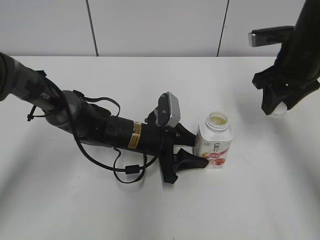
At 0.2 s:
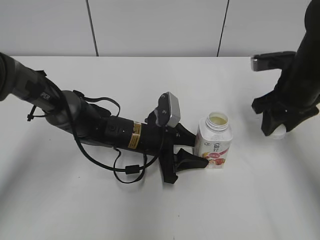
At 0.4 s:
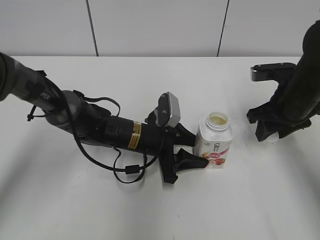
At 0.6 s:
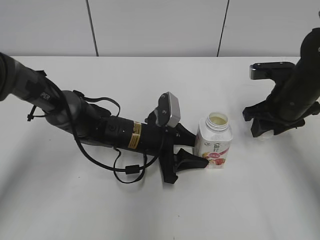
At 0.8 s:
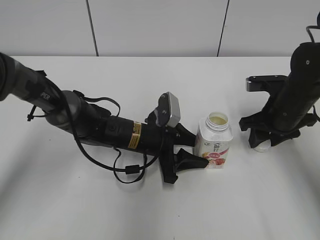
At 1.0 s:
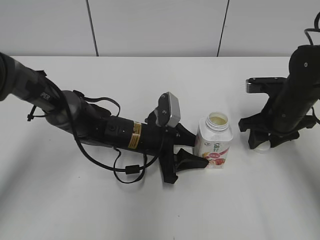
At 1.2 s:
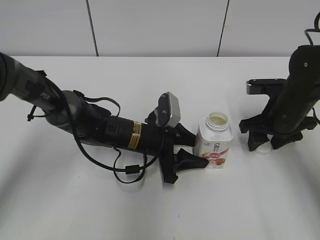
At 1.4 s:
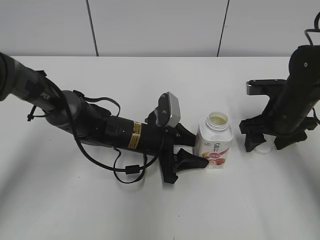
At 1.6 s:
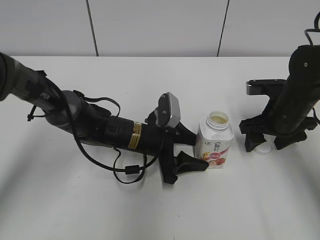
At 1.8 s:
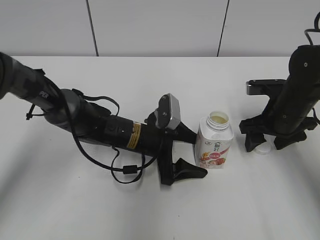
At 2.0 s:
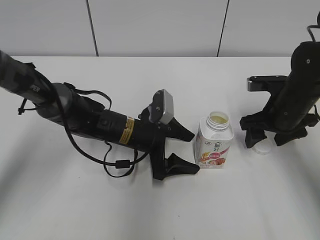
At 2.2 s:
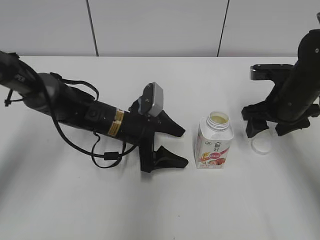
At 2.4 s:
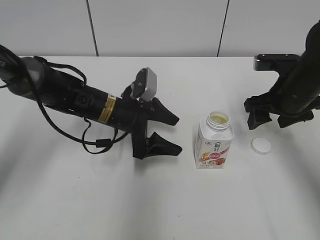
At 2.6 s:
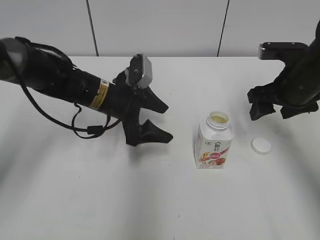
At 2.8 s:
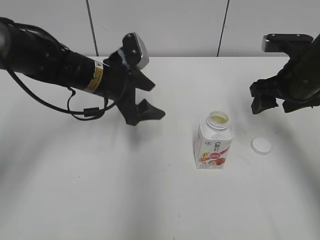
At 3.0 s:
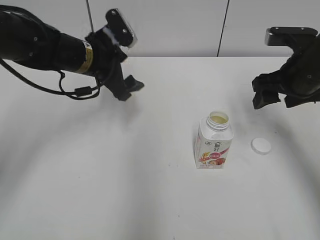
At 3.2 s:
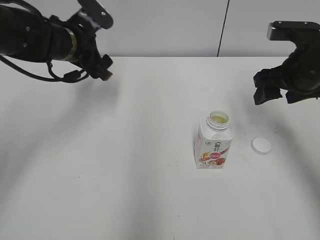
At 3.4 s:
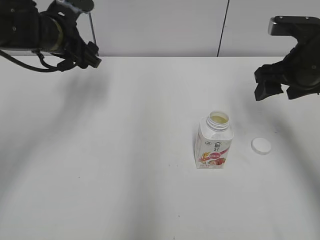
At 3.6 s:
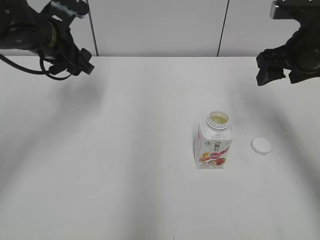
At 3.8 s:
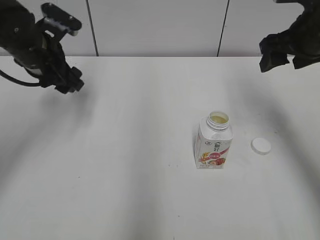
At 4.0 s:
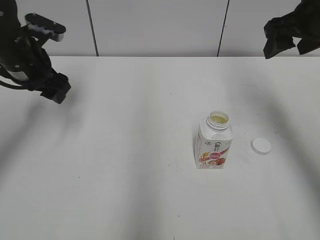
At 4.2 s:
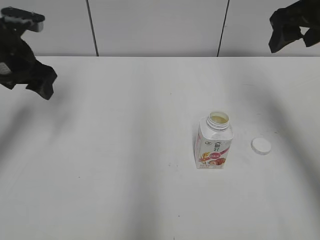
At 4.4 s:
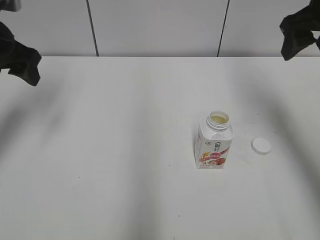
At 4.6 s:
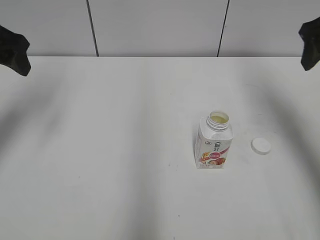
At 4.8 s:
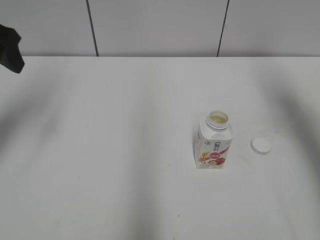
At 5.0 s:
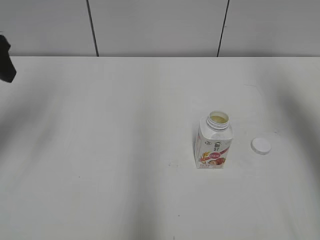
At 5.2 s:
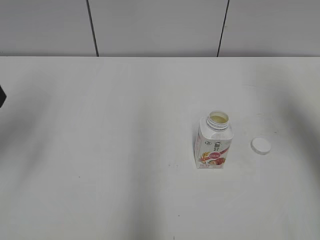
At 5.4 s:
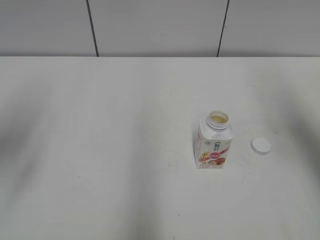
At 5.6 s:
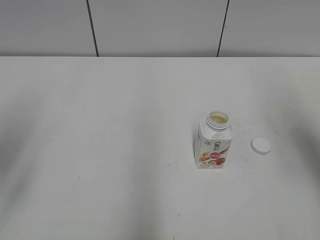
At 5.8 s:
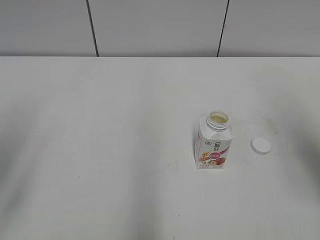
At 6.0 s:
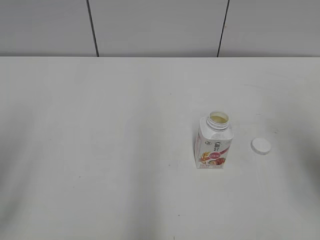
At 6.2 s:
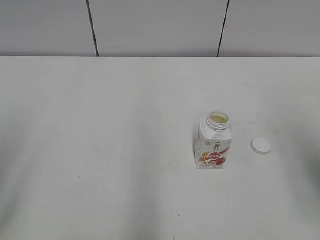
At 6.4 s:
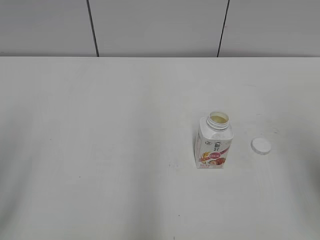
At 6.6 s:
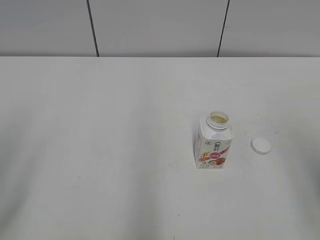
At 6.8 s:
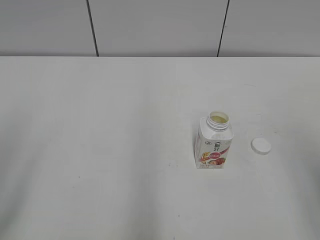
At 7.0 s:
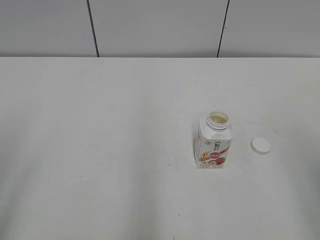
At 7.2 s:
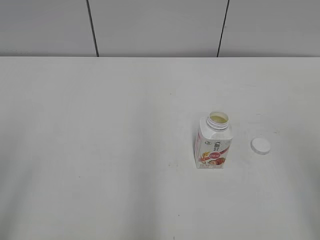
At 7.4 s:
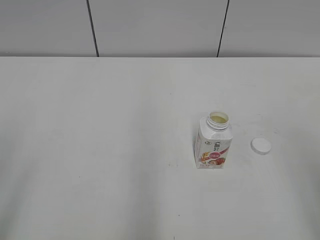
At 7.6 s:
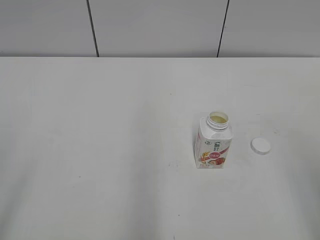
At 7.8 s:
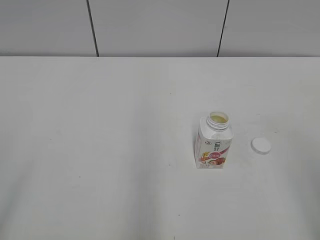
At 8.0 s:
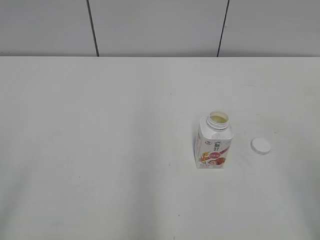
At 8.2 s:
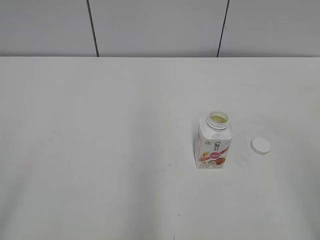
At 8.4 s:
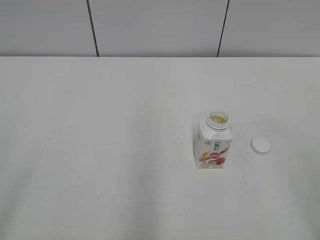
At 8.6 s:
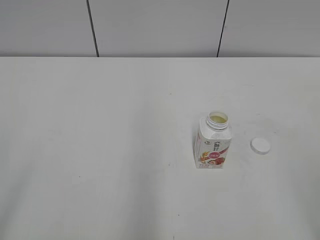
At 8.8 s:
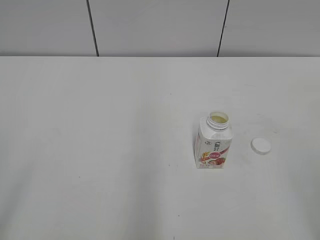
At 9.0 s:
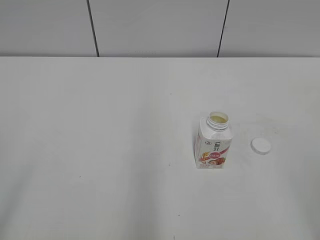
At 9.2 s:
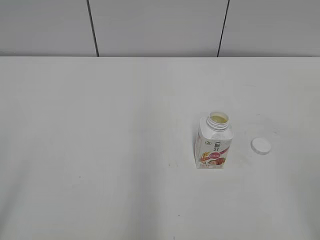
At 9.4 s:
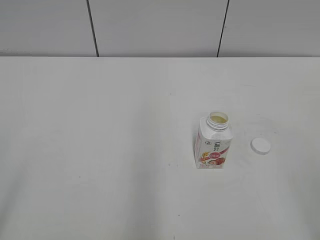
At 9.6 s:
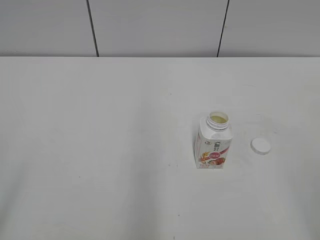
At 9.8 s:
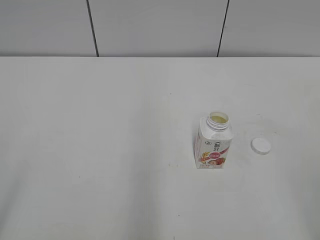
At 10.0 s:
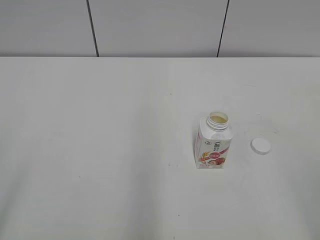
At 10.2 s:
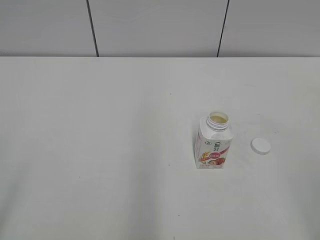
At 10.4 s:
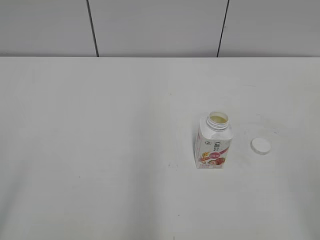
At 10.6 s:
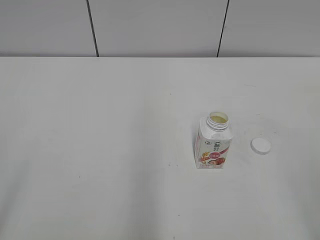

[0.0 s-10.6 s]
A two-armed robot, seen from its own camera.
0.0 to 1.6 s: The right gripper shifts some 10 cm downward, and opens.
1.6 to 3.0 s: The left gripper heads upward, to the left and forward, covering roughly 20 cm, and opens up. The right gripper travels upward by approximately 10 cm.
3.0 to 4.6 s: The right gripper goes approximately 10 cm upward, while the left gripper moves to the left, upward and backward, approximately 20 cm.
4.6 to 6.0 s: Both grippers move backward, roughly 20 cm.
6.0 to 7.6 s: The right gripper travels backward by some 10 cm.

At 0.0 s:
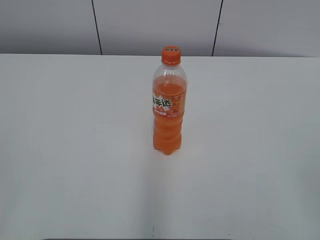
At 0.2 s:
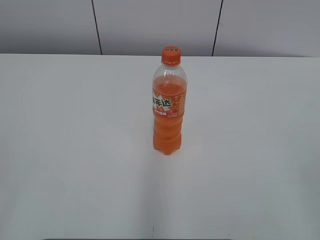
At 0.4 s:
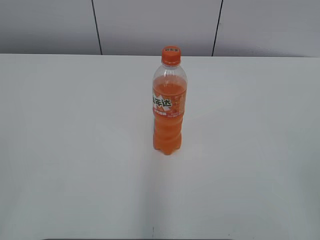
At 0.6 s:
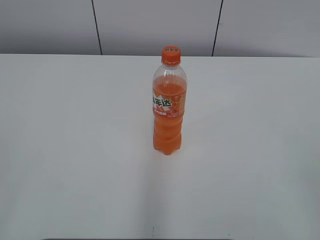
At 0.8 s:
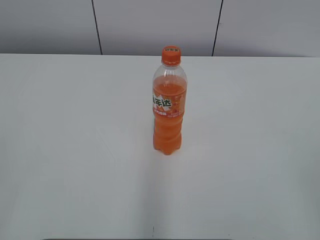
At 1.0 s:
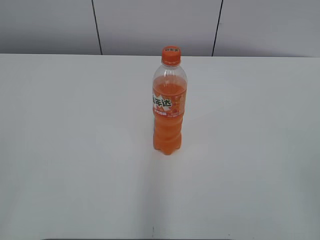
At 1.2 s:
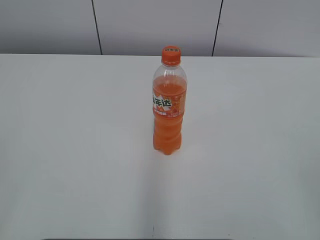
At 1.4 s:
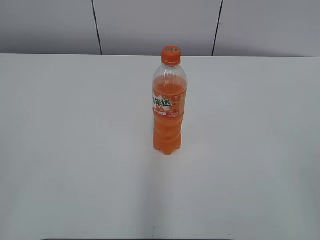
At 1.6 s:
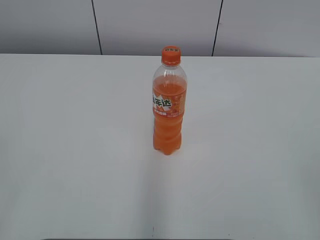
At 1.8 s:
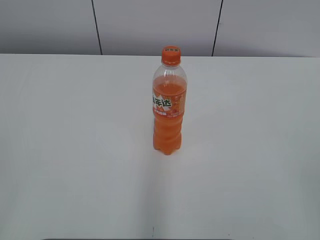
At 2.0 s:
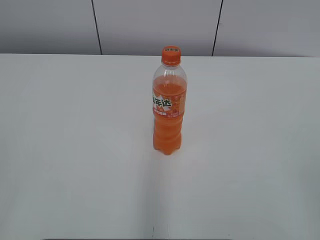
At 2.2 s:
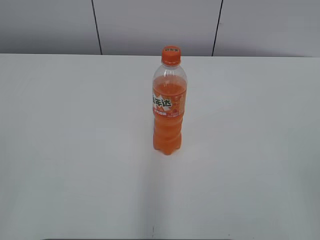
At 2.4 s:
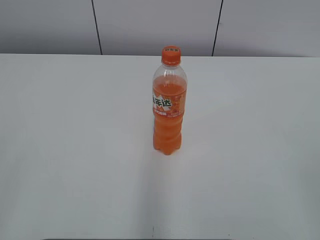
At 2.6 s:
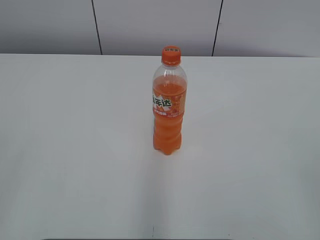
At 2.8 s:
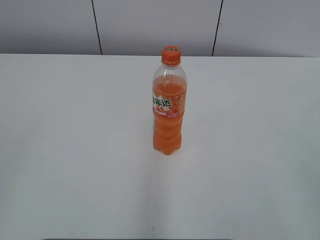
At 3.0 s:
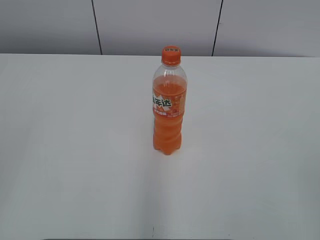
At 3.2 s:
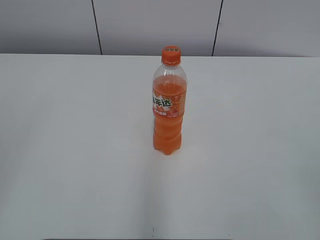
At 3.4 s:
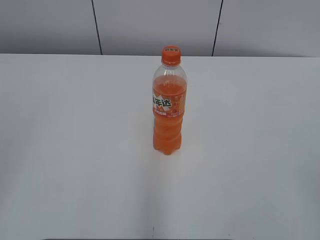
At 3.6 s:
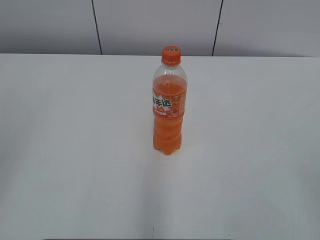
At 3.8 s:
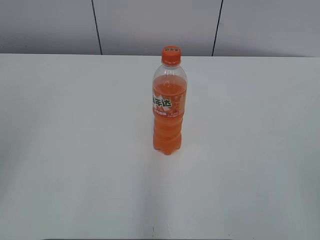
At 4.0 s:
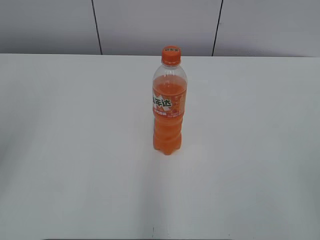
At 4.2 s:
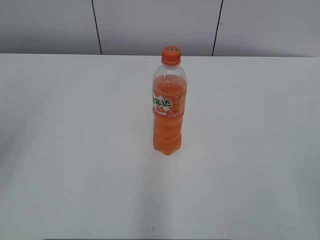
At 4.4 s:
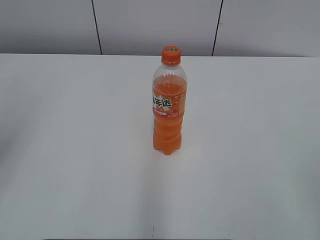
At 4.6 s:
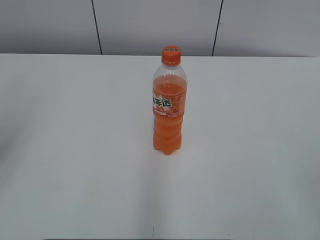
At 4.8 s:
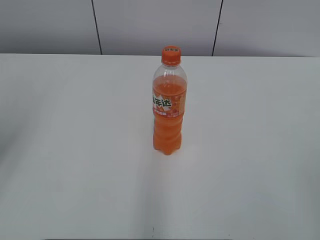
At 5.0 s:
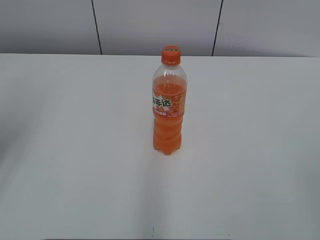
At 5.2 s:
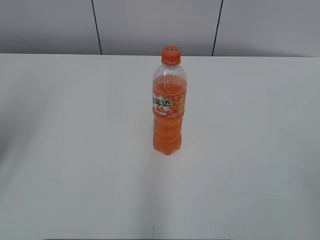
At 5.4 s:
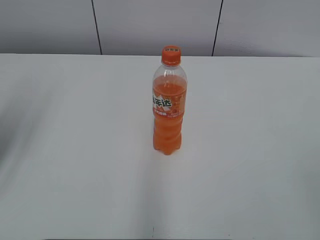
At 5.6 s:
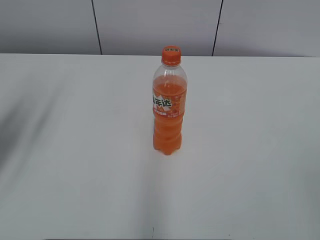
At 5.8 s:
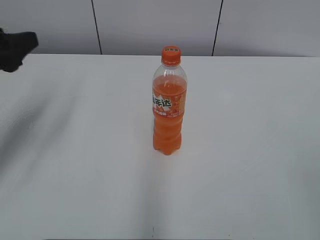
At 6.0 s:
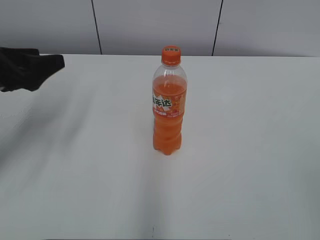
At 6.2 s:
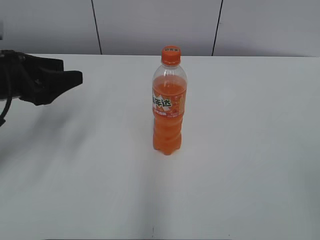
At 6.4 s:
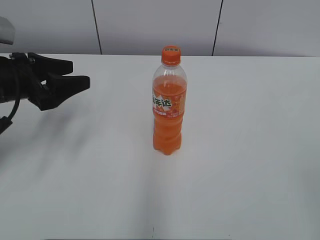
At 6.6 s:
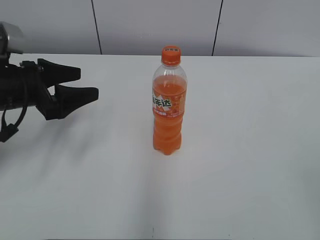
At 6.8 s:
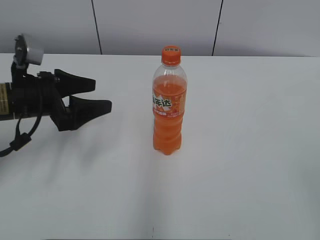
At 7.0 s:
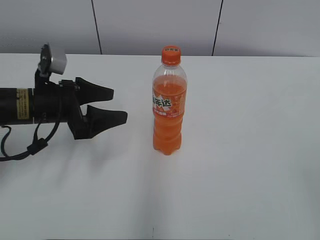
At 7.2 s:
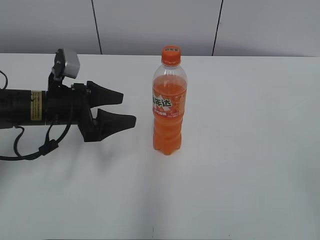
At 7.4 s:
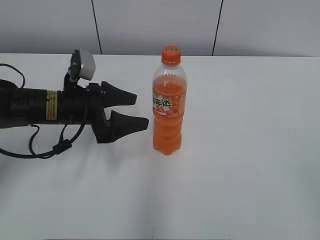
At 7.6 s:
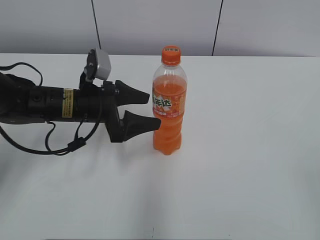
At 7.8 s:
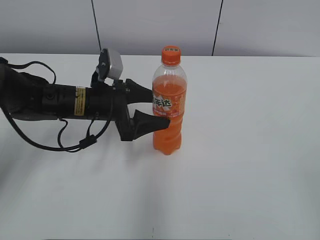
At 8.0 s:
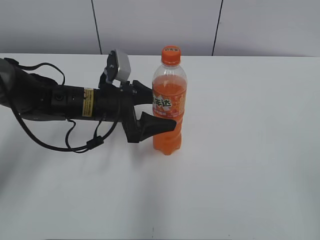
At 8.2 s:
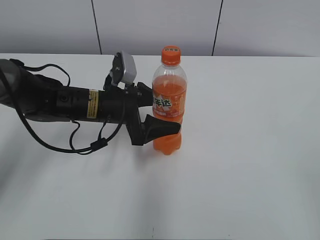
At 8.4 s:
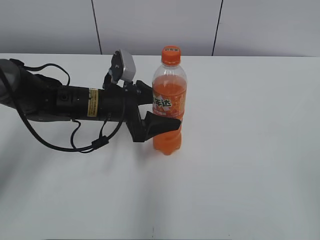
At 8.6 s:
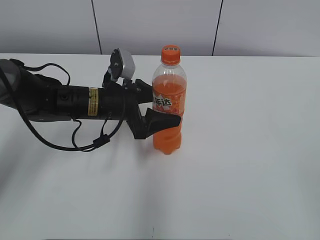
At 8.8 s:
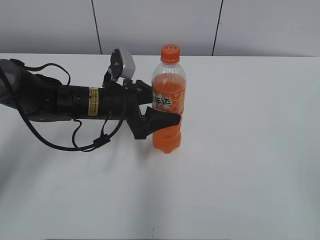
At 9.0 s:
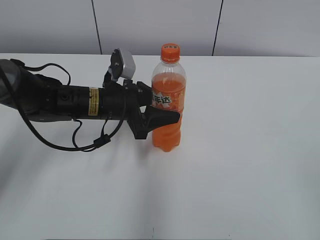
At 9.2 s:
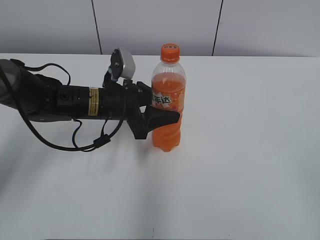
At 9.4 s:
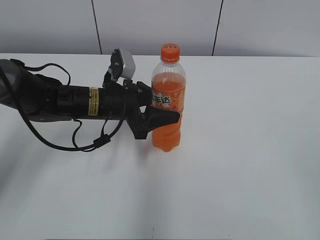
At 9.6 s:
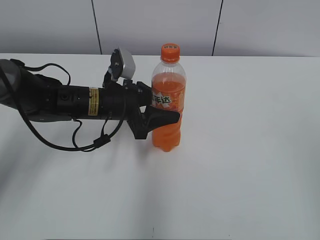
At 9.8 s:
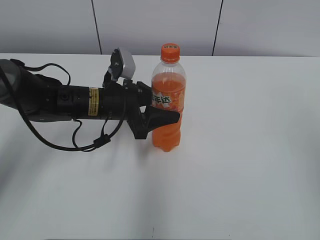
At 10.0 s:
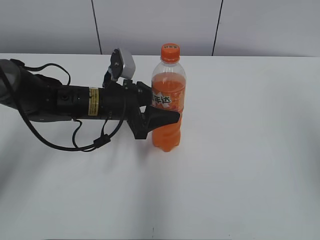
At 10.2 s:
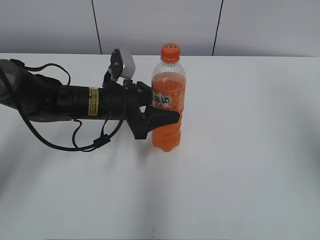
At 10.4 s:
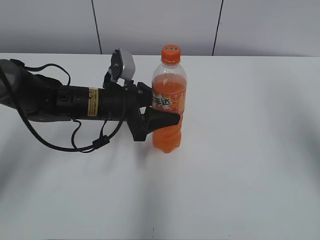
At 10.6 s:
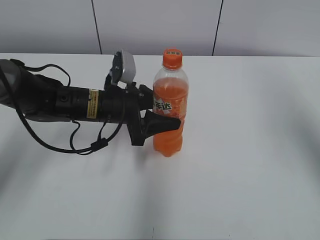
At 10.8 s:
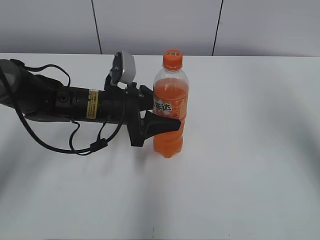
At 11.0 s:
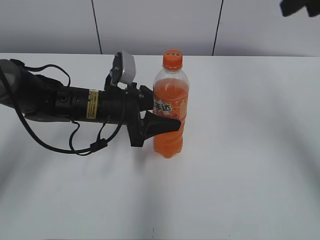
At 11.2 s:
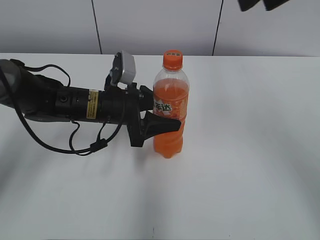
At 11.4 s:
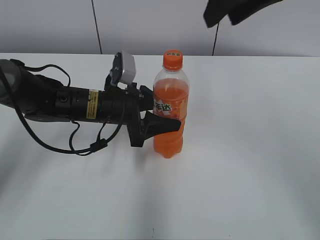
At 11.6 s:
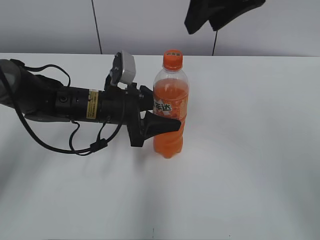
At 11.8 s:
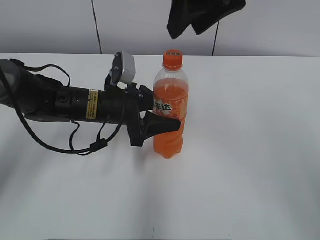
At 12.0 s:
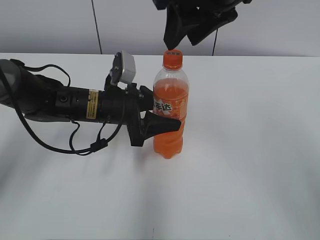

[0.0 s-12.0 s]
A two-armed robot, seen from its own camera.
Step, 0.0 to 9.8 s: Grab the Mirinda with the left hand.
4.4 to 6.0 s: The left gripper is displaced forward and downward by some 20 cm.
6.0 to 7.6 s: The left gripper moves to the right and downward, roughly 15 cm.
7.6 to 9.0 s: The left gripper closes its fingers.
9.0 to 10.4 s: The right gripper travels forward and upward by approximately 25 cm, and closes up.
10.4 to 12.0 s: The right gripper is displaced to the left and forward by some 25 cm.
